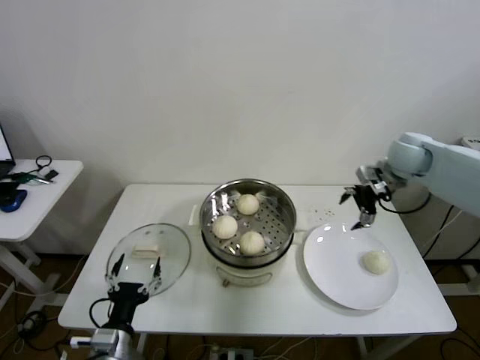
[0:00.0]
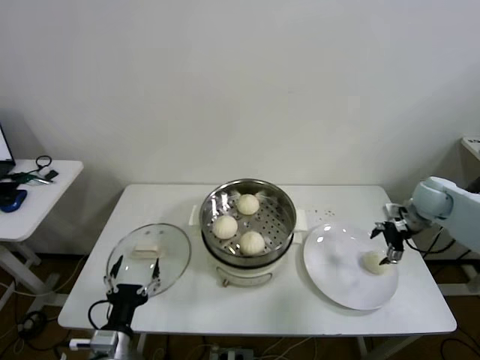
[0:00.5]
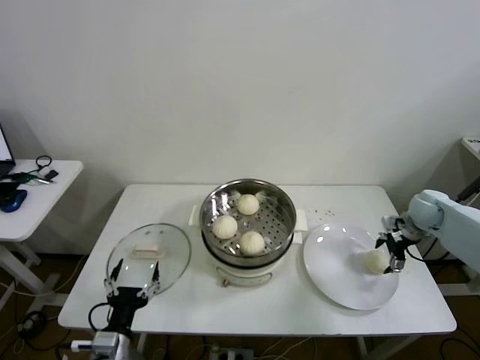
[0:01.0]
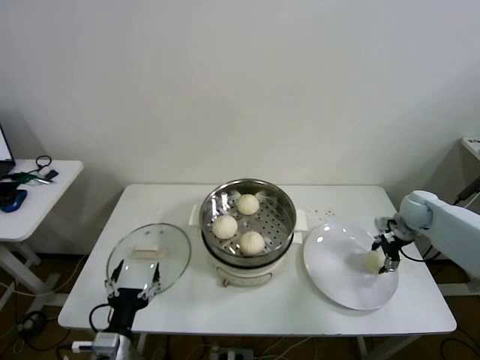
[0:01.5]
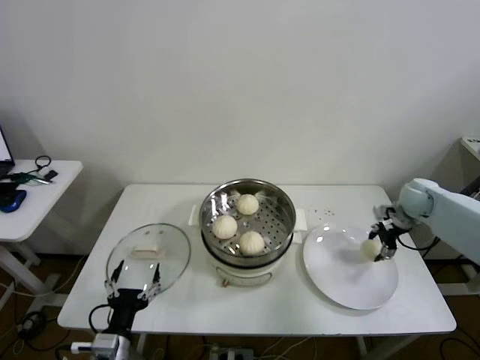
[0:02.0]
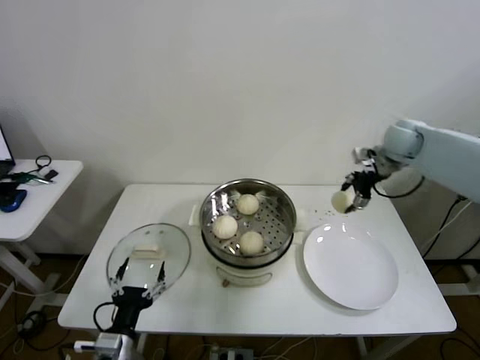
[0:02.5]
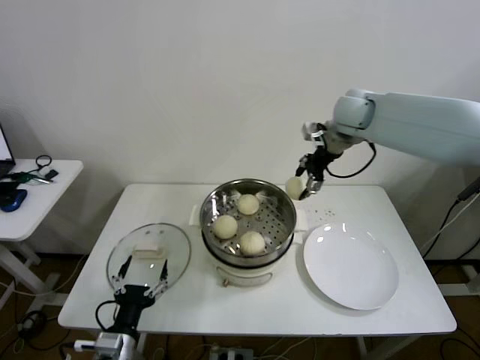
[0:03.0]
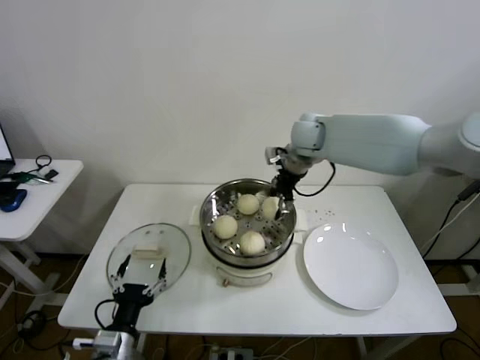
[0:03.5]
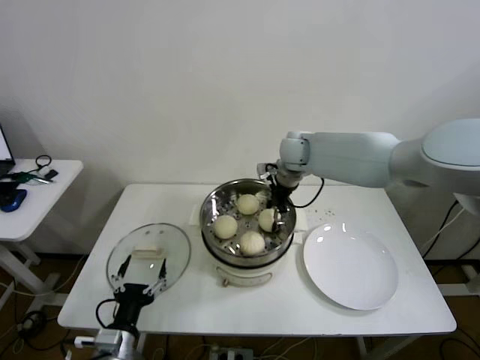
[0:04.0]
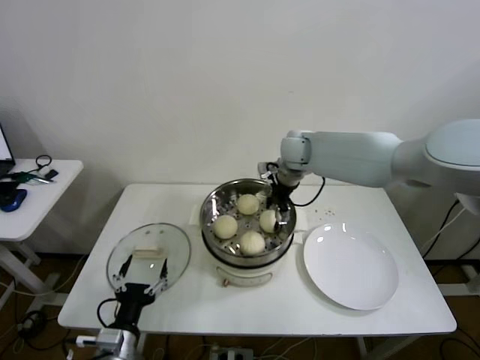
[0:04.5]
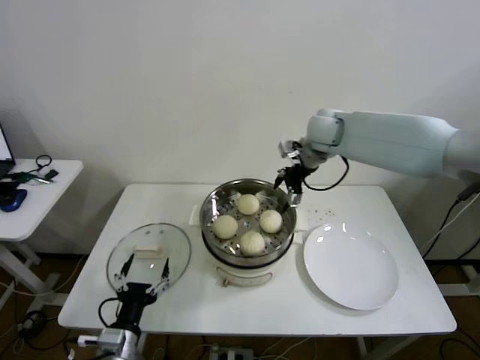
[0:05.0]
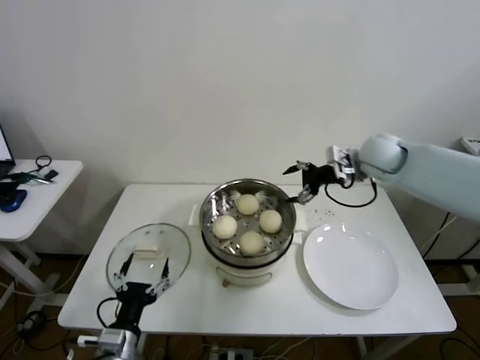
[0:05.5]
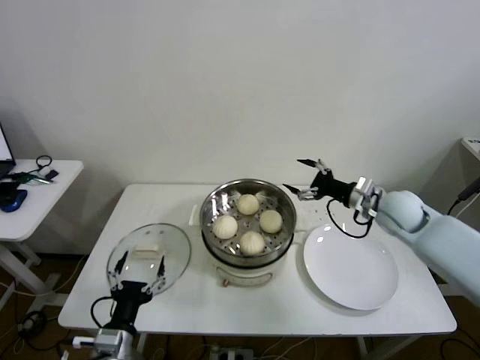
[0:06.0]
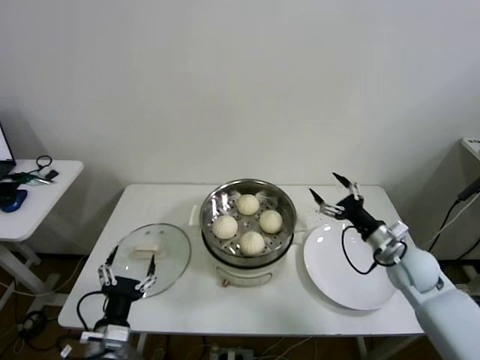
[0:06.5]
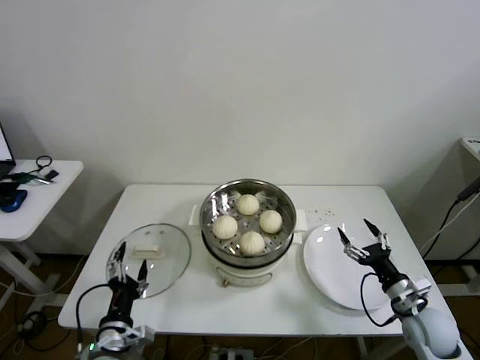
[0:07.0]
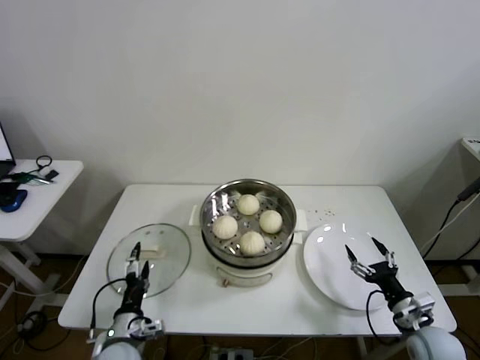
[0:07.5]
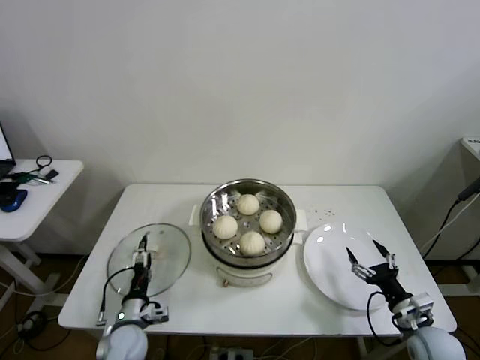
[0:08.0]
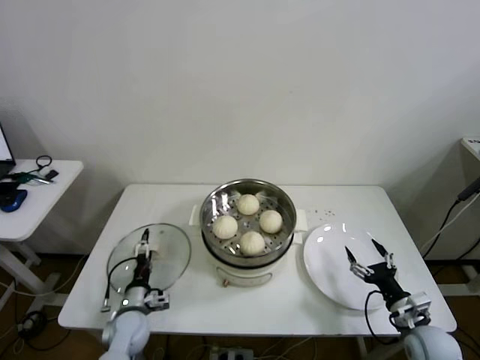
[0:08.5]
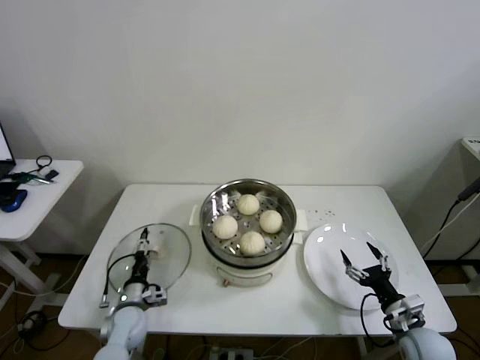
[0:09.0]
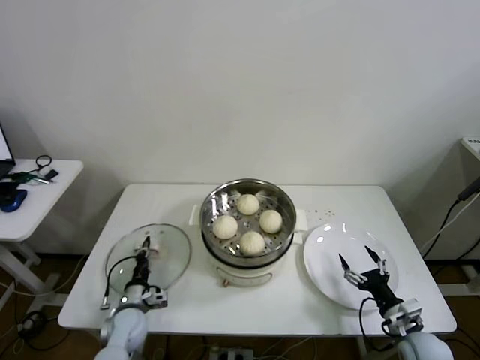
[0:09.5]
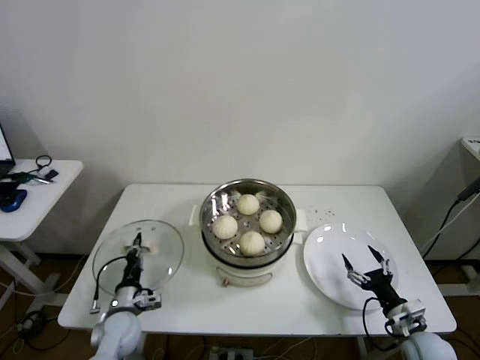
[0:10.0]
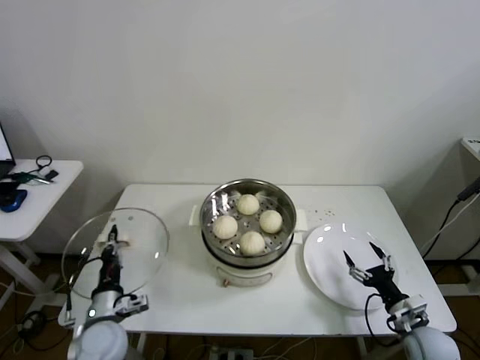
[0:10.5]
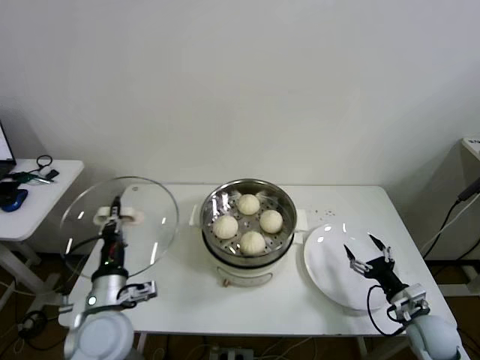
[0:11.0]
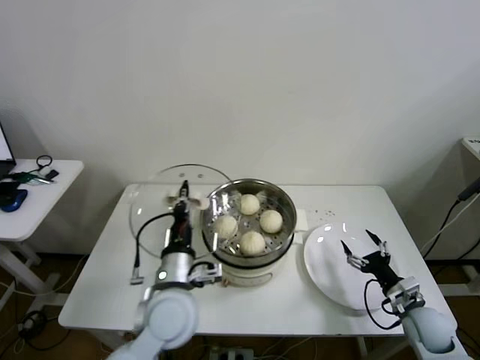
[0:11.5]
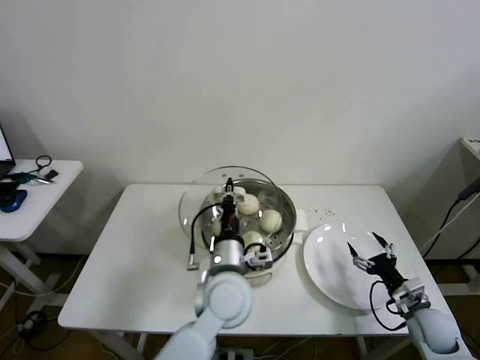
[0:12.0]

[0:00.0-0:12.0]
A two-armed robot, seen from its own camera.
Step, 0:00.0 to 0:01.5: Grasp the baozi in the plate with right gripper.
Step, 0:02.0 to 0:04.0: Place the baozi on the steamer with right gripper.
Step, 0:04.5 to 0:09.5: Grasp the pot lid with left gripper.
0:00.0 to 0:02.0: The right gripper heads downward and to the right, covering approximately 15 cm, and closes.
0:02.0 to 0:04.0: The right gripper travels to the left by approximately 30 cm.
0:04.0 to 0:06.0: The right gripper is displaced to the right and backward by some 25 cm, and opens.
0:06.0 to 0:08.0: The left gripper travels downward and forward by roughly 15 cm. Meanwhile the right gripper shifts about 30 cm backward and downward.
0:08.0 to 0:10.0: The left gripper closes up.
0:10.0 to 0:12.0: The right gripper shifts by about 5 cm. The left gripper shifts roughly 35 cm to the right and upward.

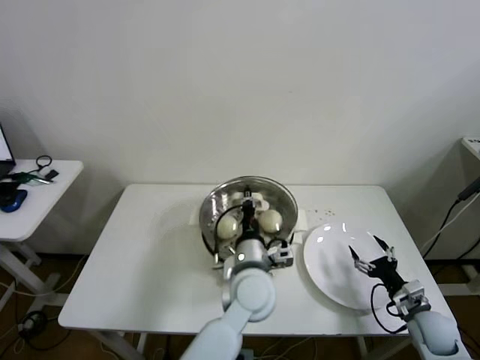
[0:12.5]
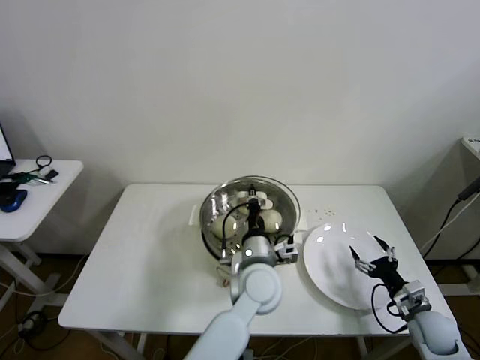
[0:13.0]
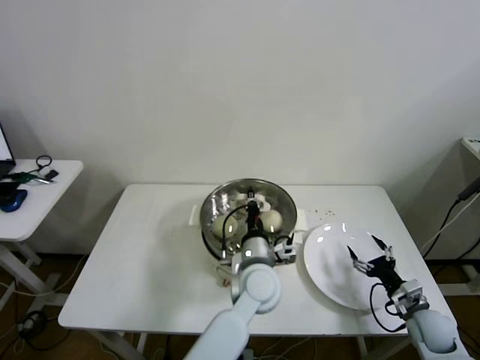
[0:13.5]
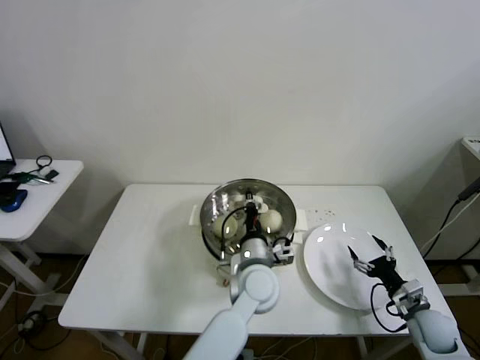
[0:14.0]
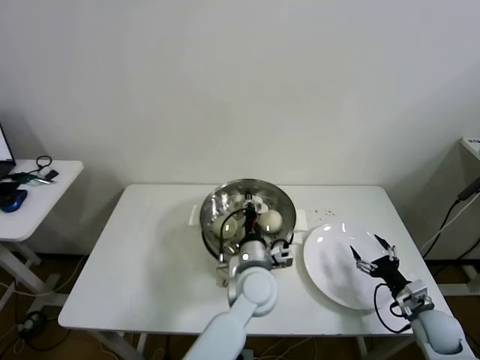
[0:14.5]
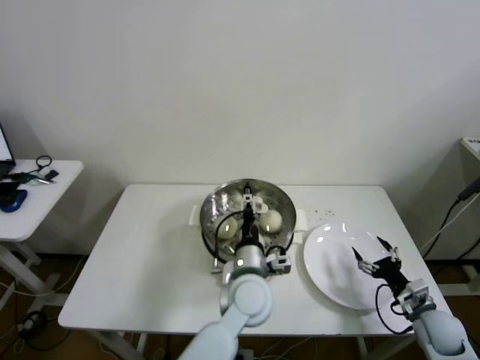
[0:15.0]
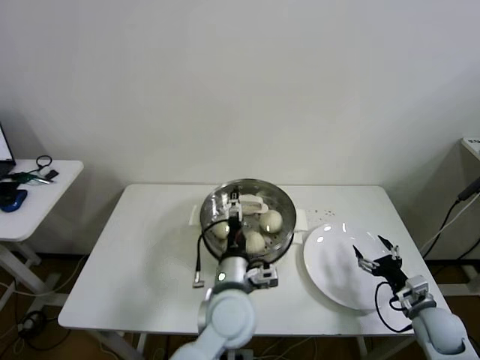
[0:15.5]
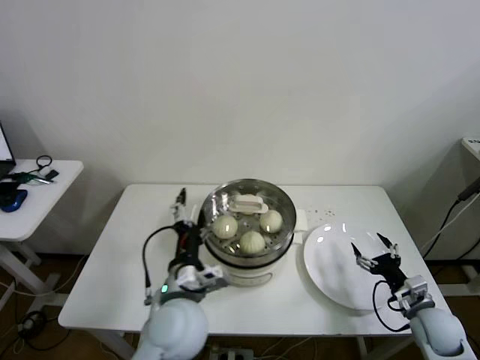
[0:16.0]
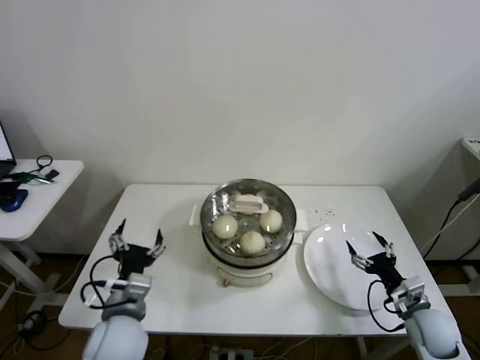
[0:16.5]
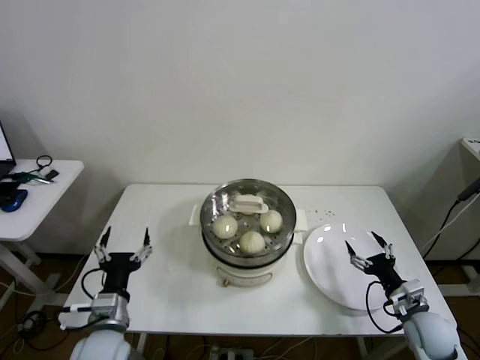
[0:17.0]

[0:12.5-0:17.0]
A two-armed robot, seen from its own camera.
Step, 0:12.5 to 0:14.5: Place the pot lid on the steamer with left gripper.
0:12.5 to 0:14.5: The grippers move only a little.
0:14.5 to 0:17.0: The left gripper shifts about 30 cm to the left and backward, and opens up.

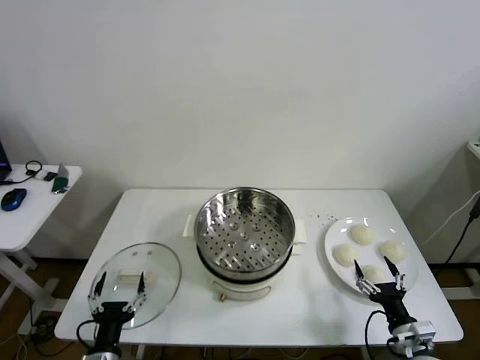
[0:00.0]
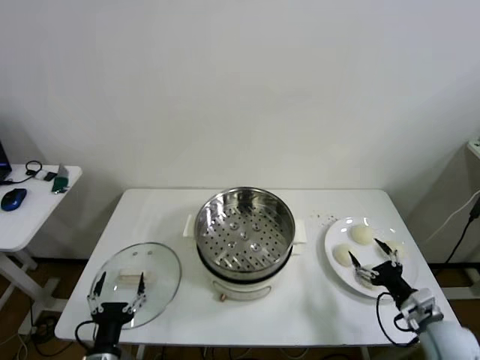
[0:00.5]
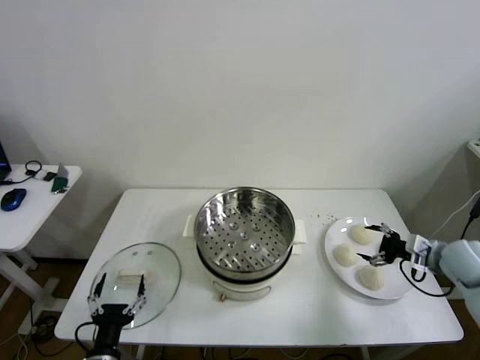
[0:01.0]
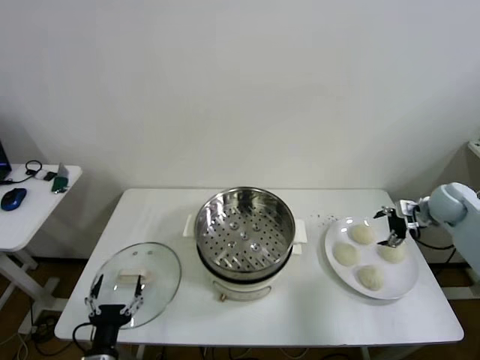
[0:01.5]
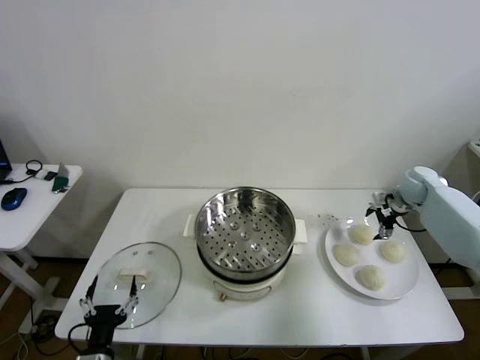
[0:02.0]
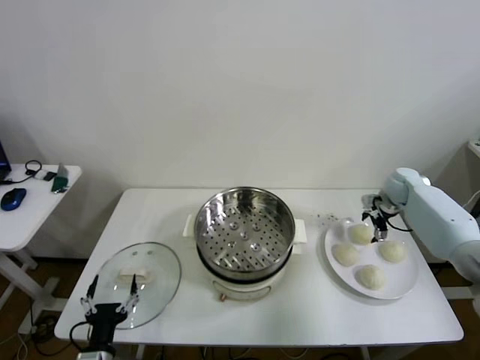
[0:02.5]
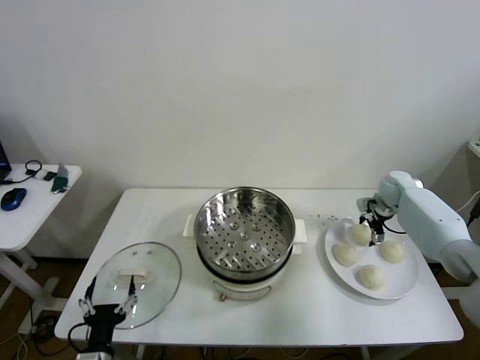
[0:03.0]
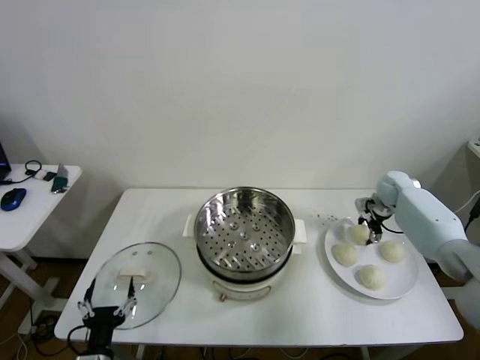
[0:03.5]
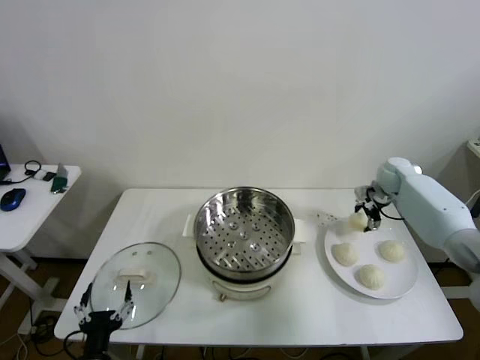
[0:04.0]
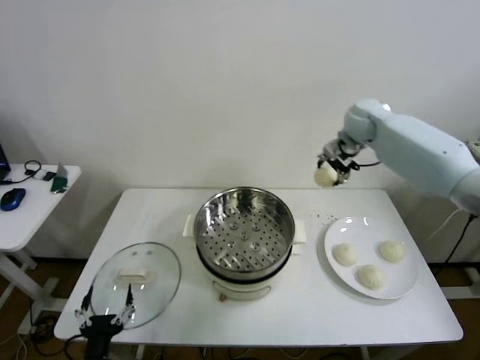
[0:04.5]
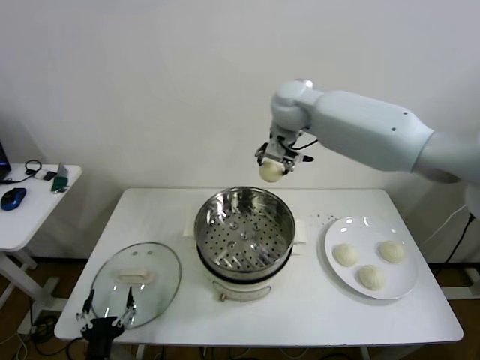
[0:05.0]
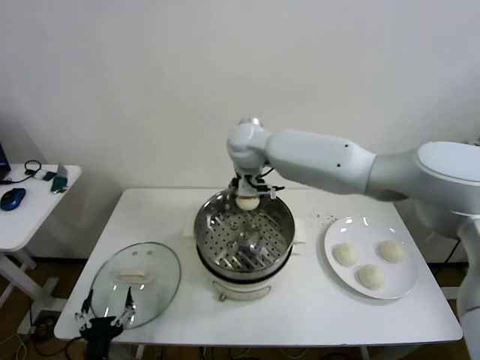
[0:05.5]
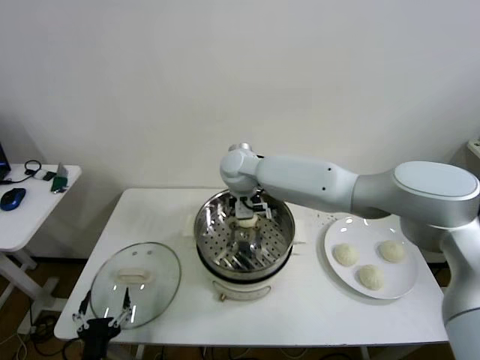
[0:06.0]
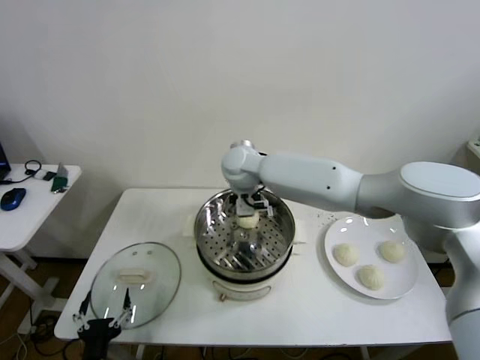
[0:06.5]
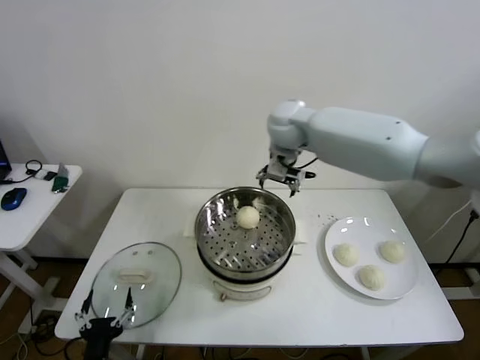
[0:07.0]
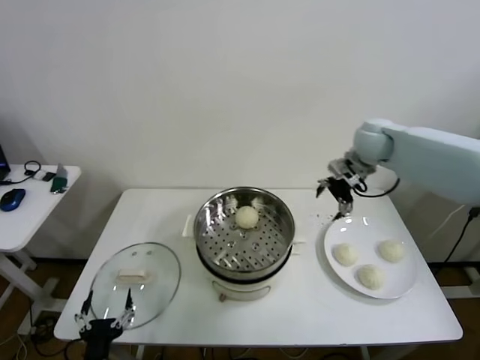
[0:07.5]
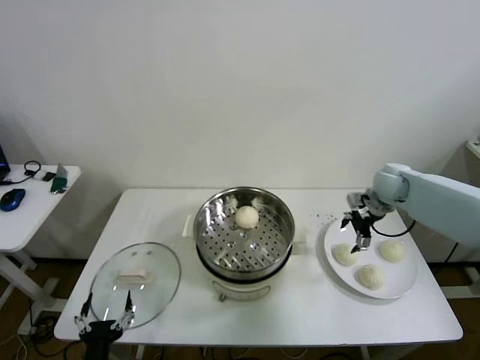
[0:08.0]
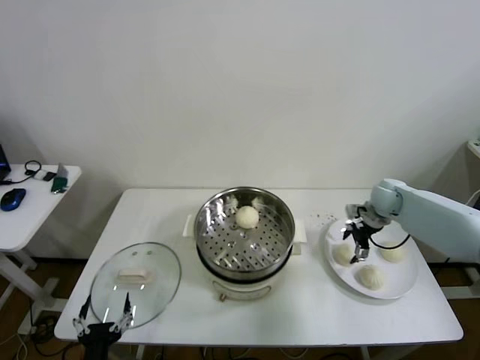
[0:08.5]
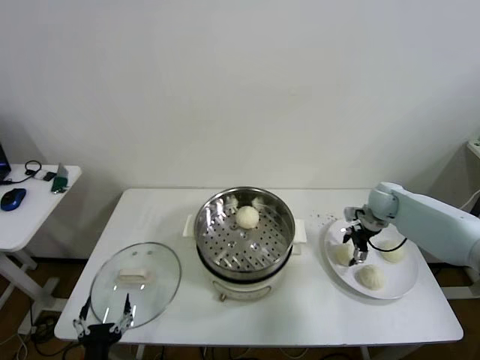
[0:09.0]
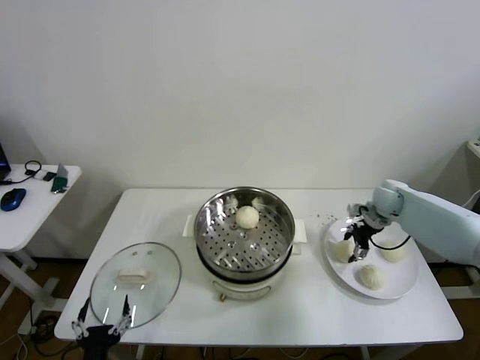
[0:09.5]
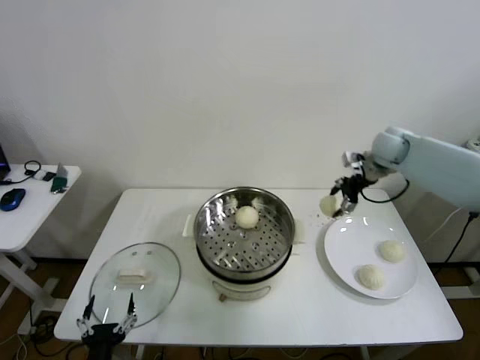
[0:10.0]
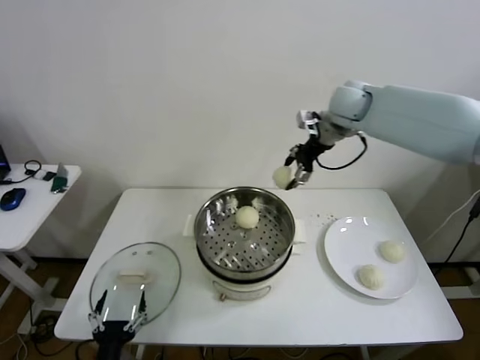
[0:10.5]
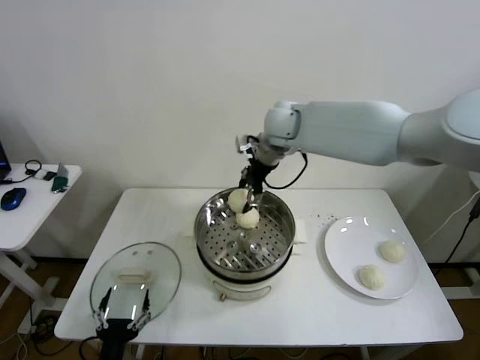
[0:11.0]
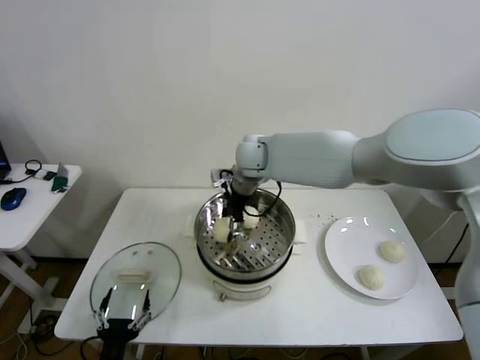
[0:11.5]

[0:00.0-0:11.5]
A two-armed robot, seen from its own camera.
Step, 0:00.0 to 0:03.0: Grasp the baozi in the plate with right gripper.
Step, 0:03.5 to 0:06.0: Place the baozi on the steamer with right gripper.
Step, 0:06.5 to 0:09.0: Grasp the baozi in the plate with right gripper.
0:02.0 to 0:04.0: The right gripper is displaced to the left by some 5 cm.
0:04.0 to 0:06.0: The right gripper shifts roughly 40 cm to the left.
0:06.0 to 0:07.5: The right gripper goes some 35 cm to the right.
0:07.5 to 0:09.5: The right gripper heads downward and to the right, covering approximately 15 cm.
0:09.5 to 0:11.5: The right gripper shifts roughly 40 cm to the left.
